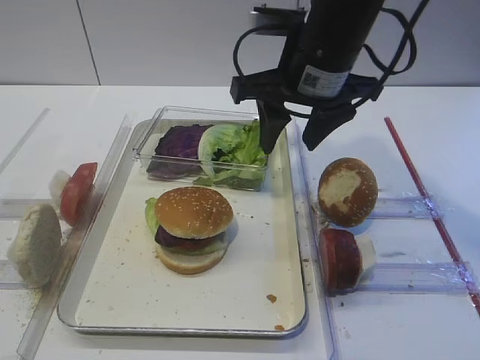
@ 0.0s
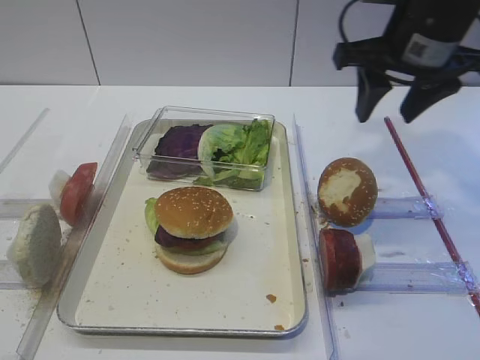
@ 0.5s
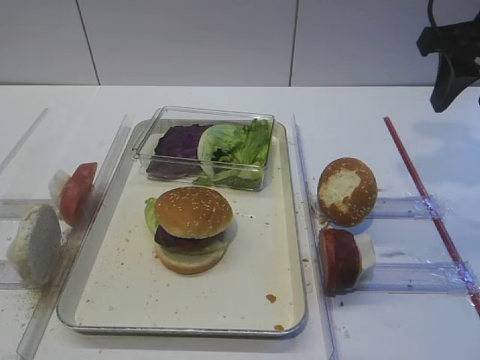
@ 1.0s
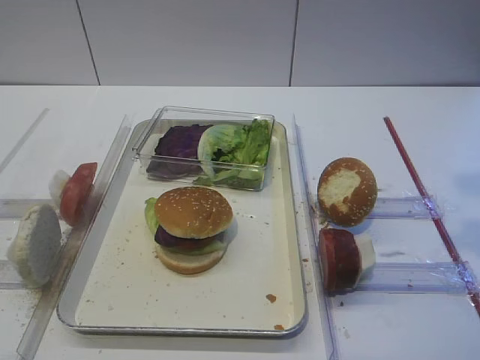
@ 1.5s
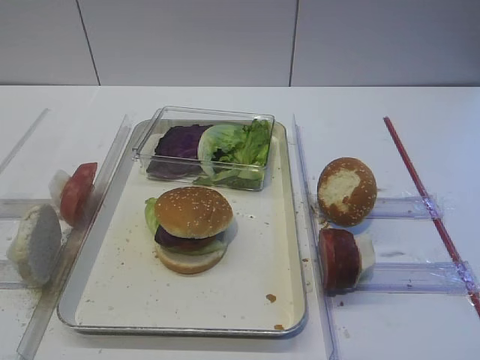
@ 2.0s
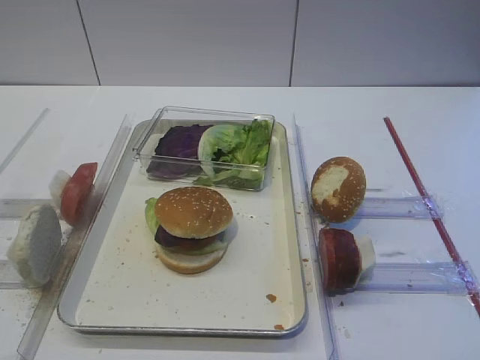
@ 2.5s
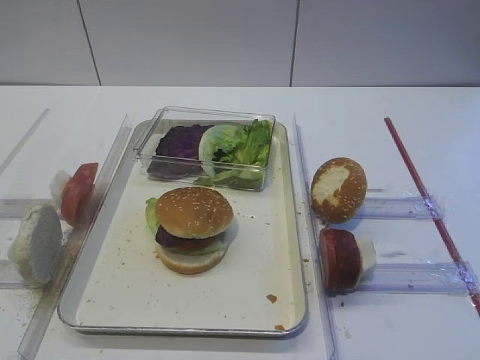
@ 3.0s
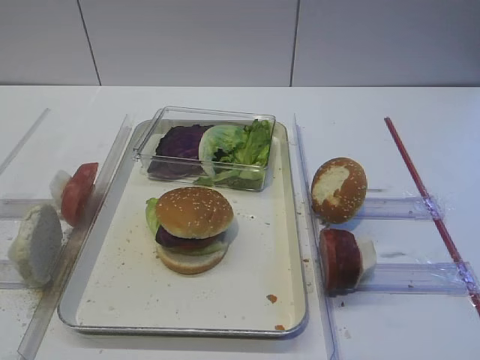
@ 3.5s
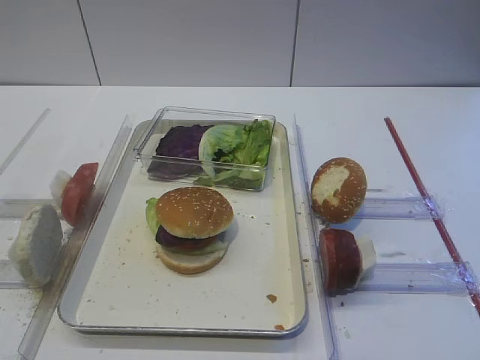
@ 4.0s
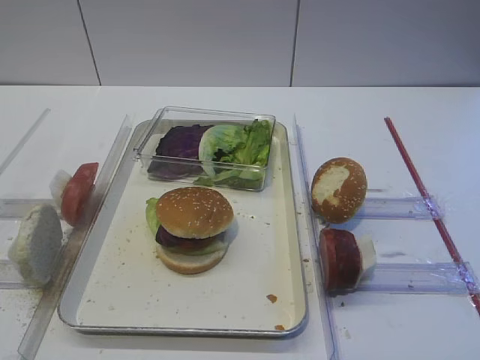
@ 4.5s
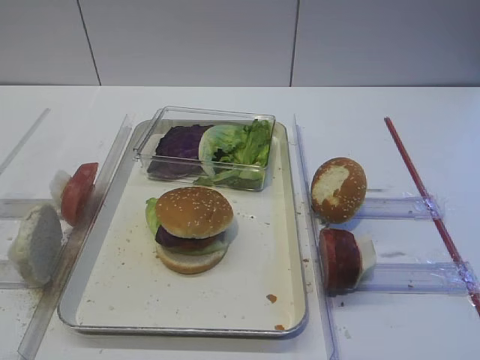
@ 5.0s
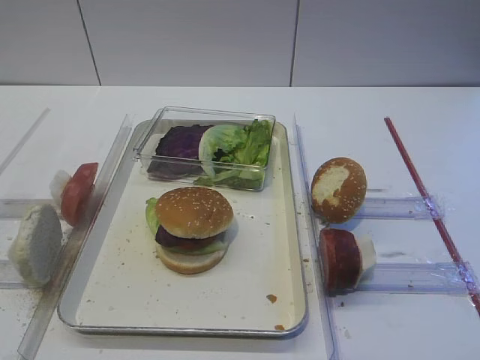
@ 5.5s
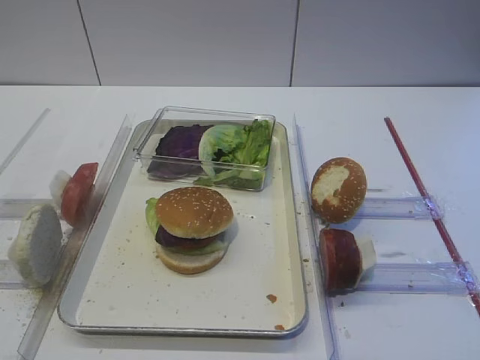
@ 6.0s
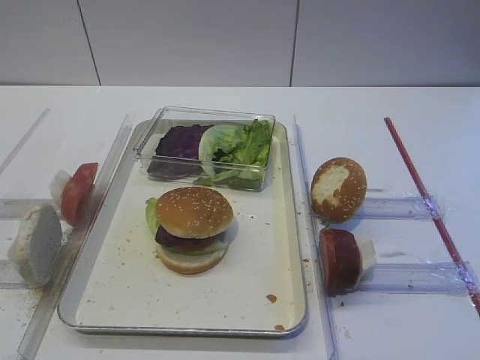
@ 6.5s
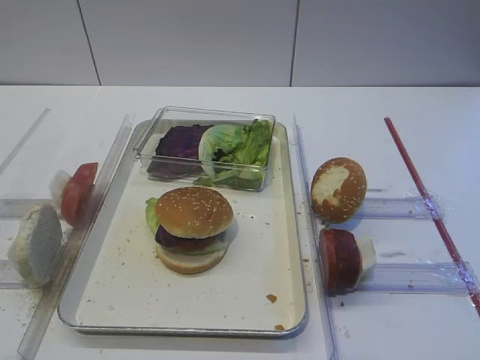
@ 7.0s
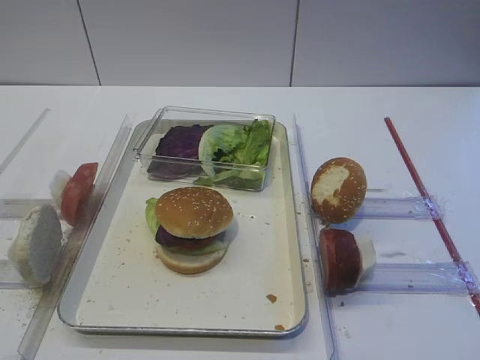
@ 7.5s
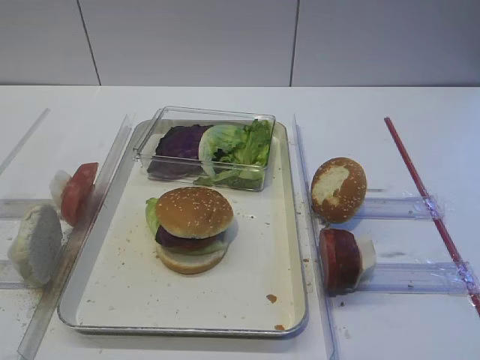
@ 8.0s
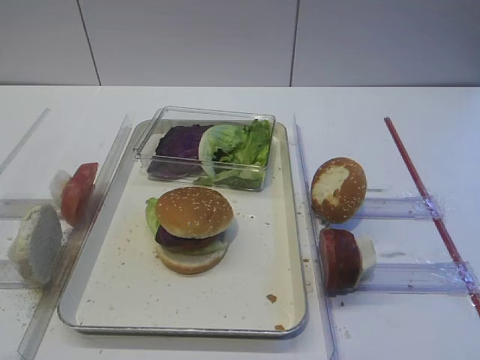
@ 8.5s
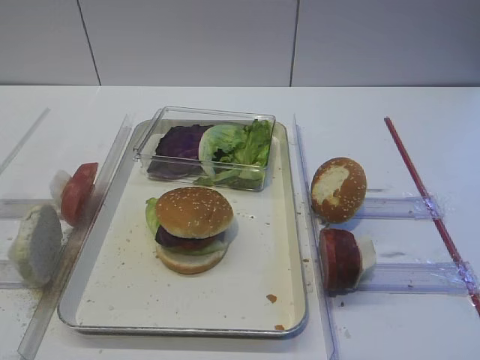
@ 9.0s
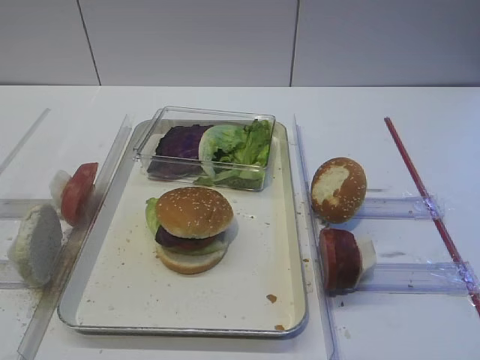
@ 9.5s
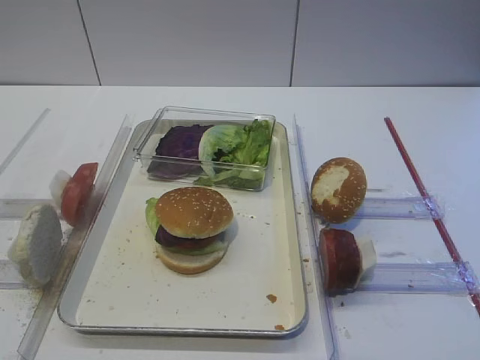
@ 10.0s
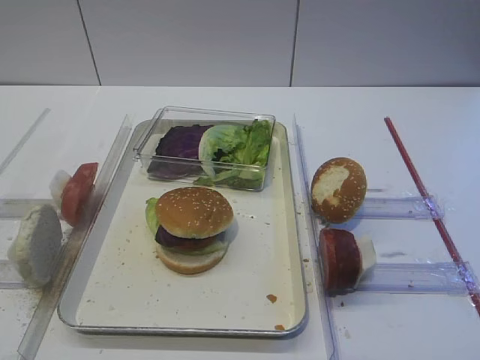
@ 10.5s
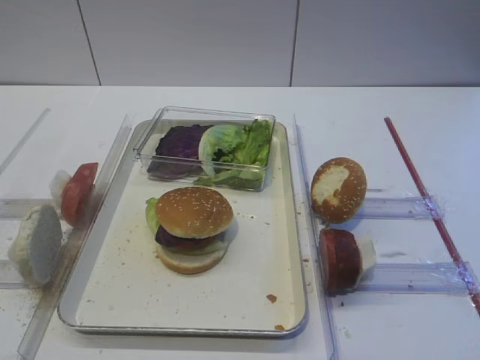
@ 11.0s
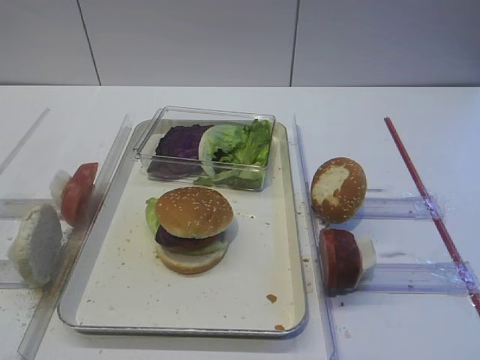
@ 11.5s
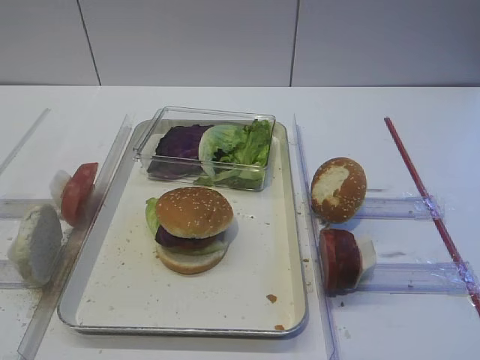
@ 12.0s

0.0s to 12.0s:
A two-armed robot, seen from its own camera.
0.0s to 2.0s: The right gripper heads backward and to the right, covering about 30 cm.
2.0s to 4.0s: The right gripper travels backward and downward by some 10 cm.
4.0s to 6.0s: Both grippers stay about where they are.
10.0s to 12.0s: Both grippers stay about where they are.

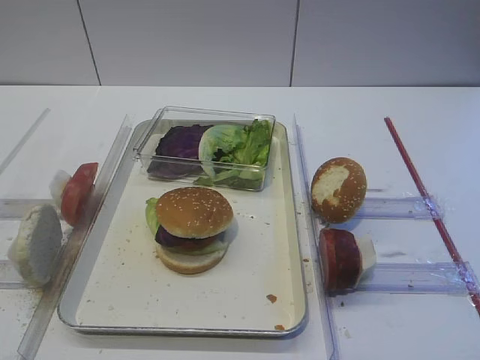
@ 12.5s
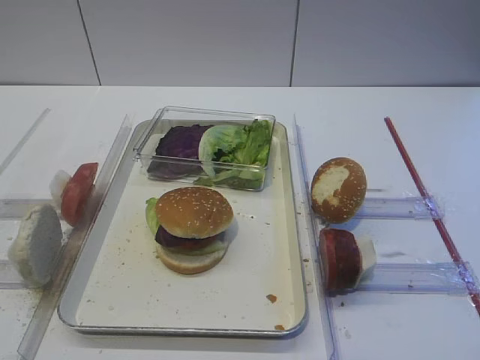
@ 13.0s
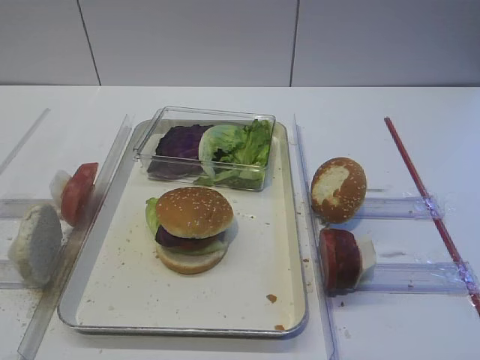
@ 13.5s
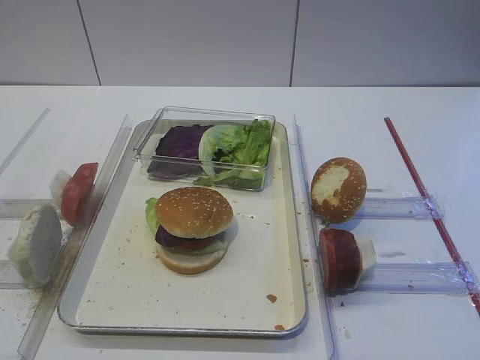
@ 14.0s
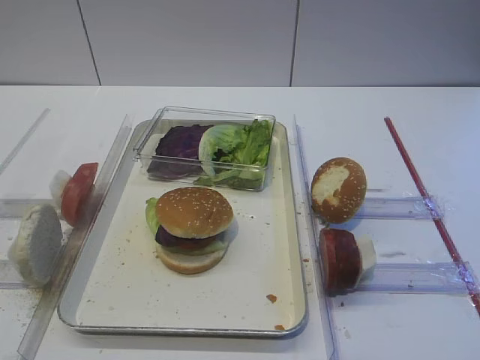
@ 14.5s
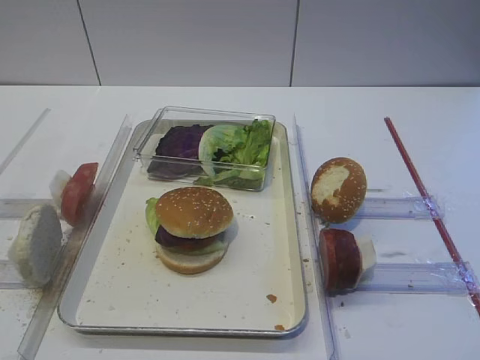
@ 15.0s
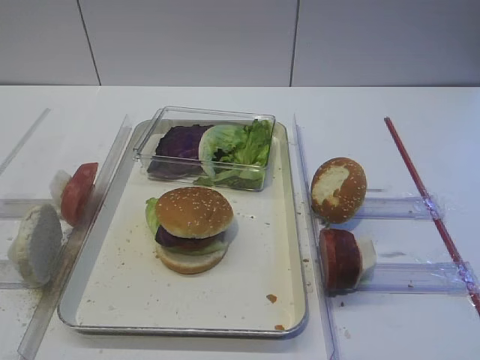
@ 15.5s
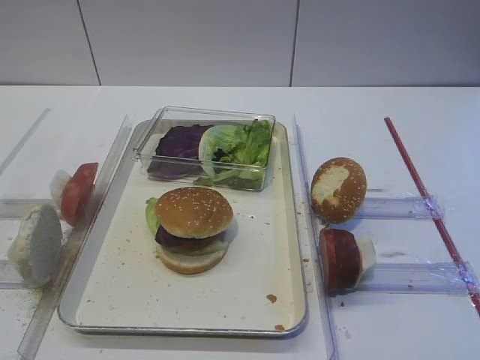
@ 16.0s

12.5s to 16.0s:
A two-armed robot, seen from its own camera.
12.5s to 16.0s: Both grippers stay put.

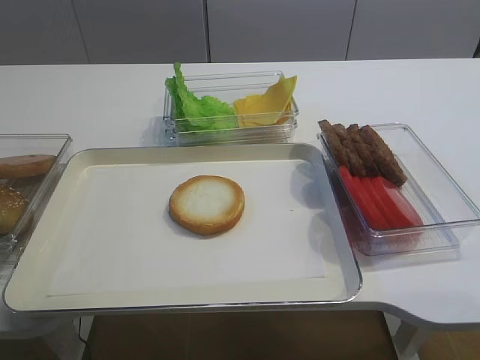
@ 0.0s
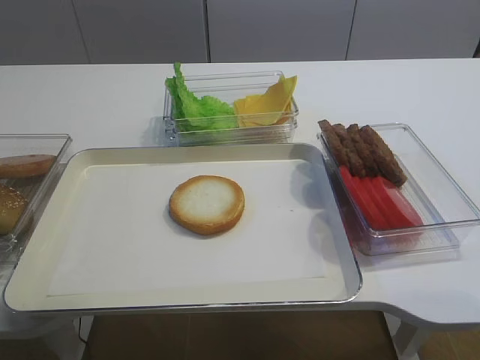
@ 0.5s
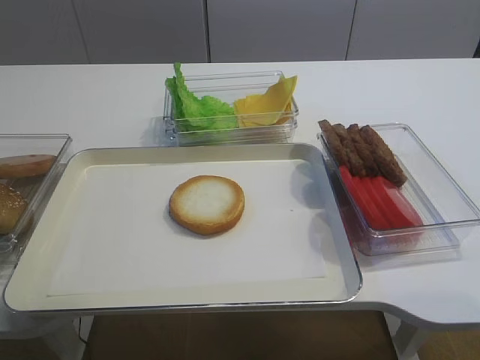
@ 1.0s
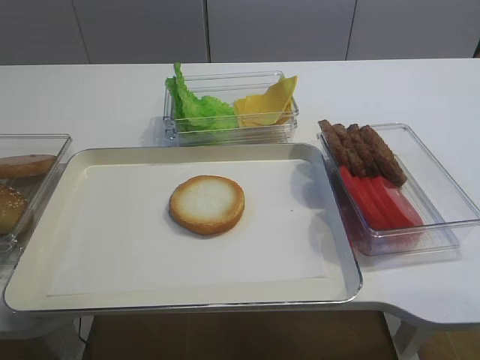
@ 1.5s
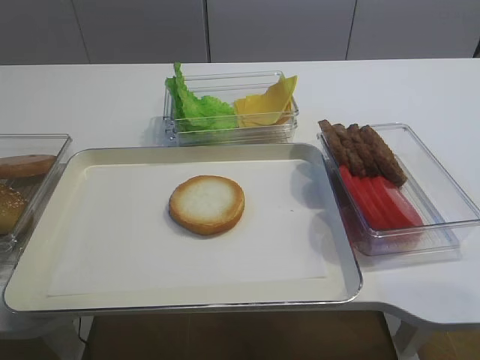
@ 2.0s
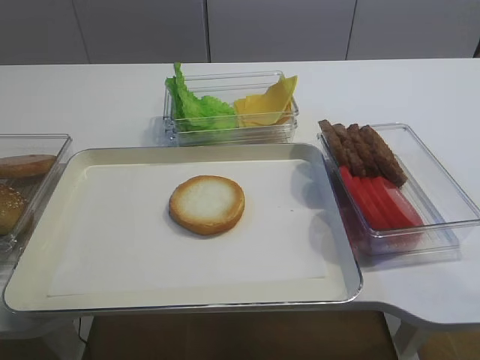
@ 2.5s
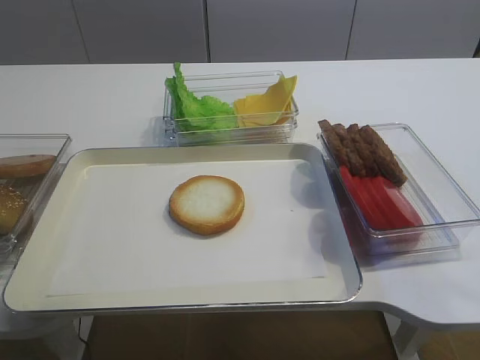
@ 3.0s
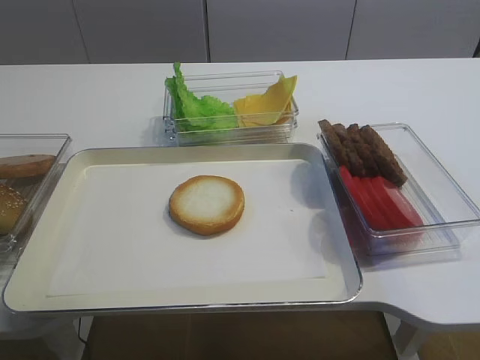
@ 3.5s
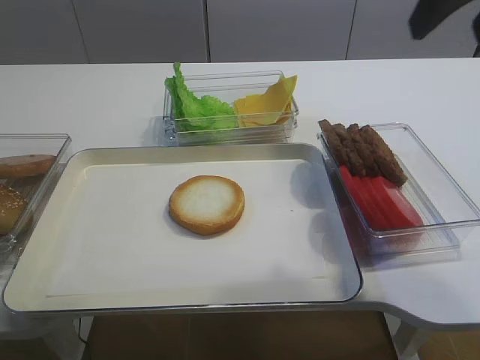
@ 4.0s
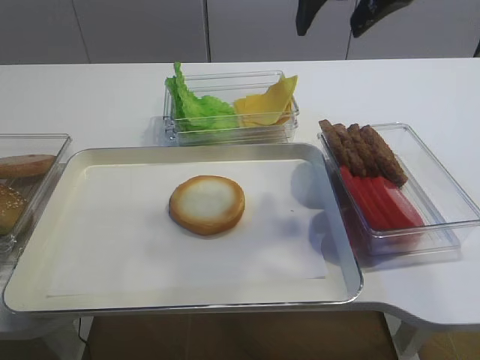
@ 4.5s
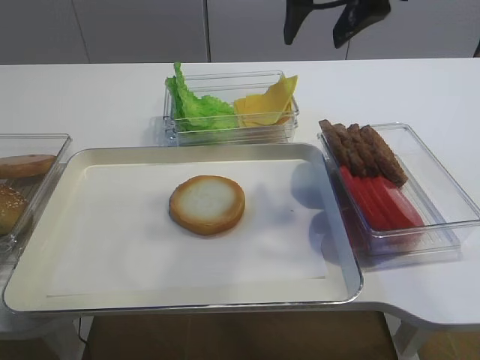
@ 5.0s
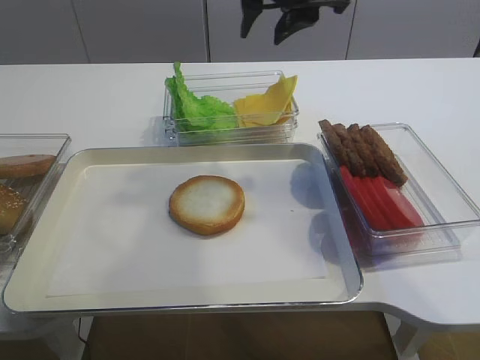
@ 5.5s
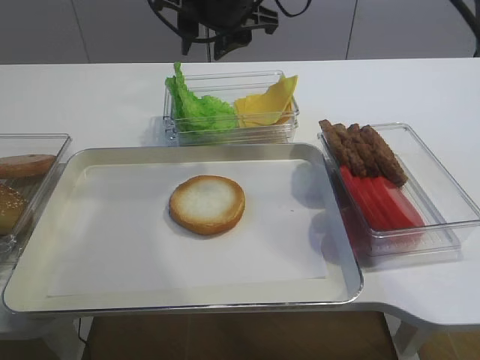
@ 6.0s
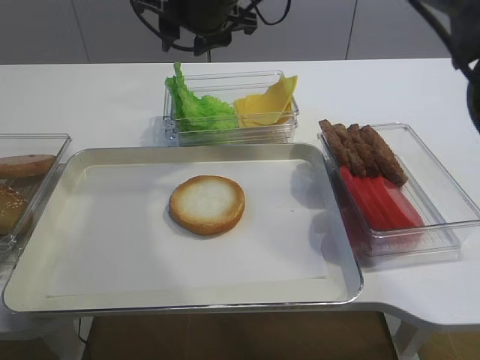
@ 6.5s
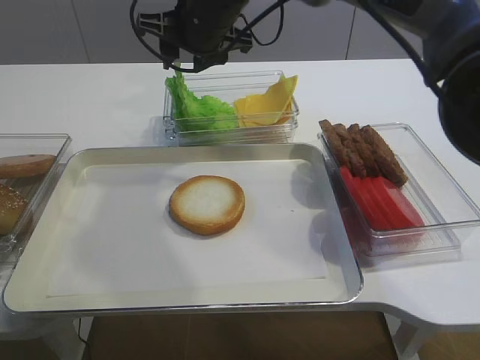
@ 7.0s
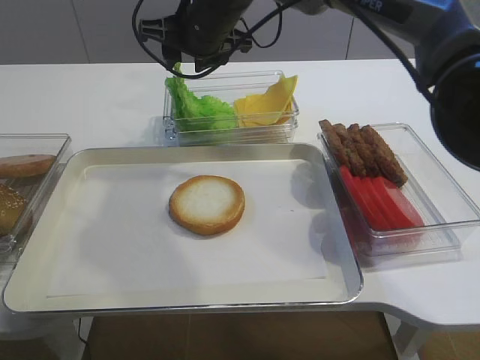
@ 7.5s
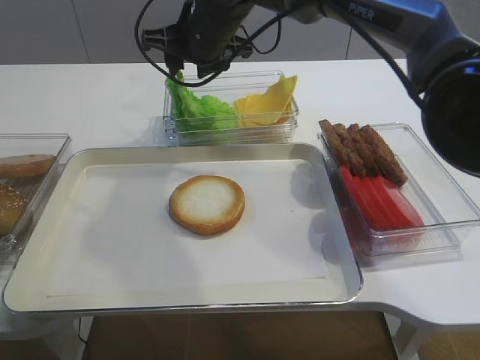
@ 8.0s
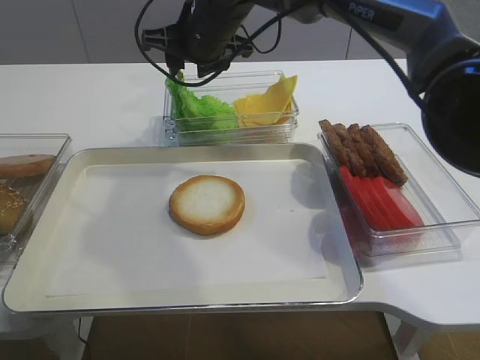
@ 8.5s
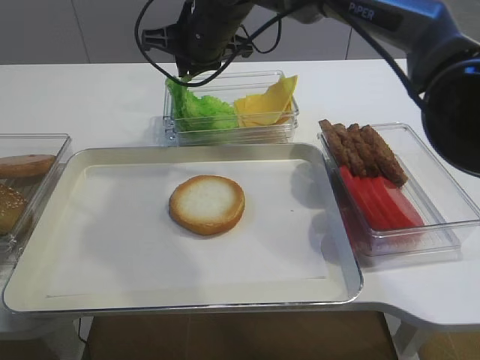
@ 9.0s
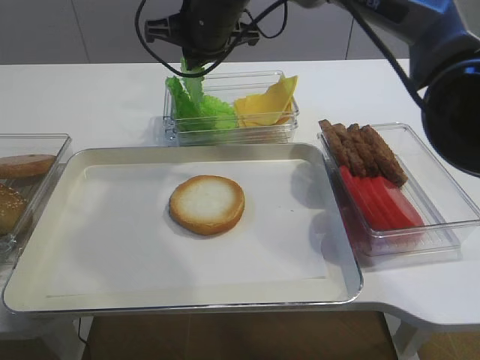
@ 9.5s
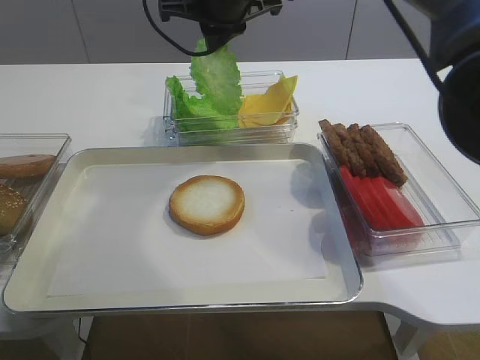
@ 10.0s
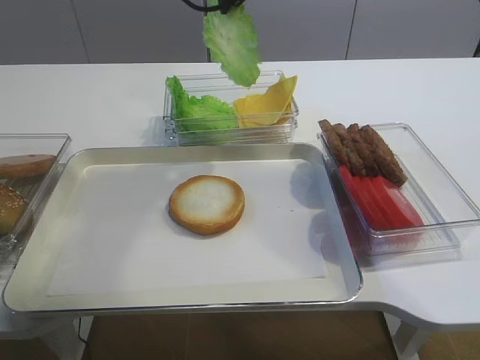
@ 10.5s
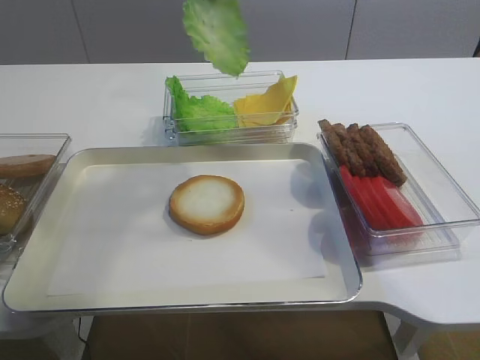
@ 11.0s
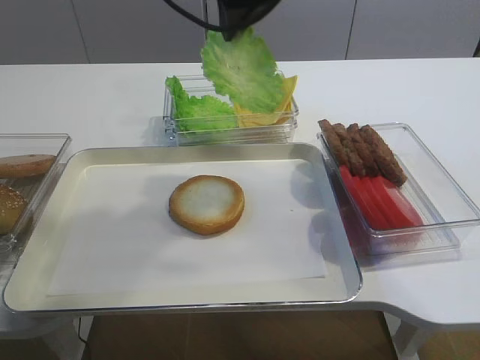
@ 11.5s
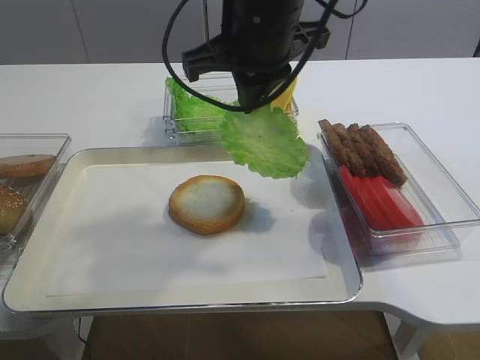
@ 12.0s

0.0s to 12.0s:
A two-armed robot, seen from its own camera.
Step, 0.0s to 11.0s: Pick up the lettuce leaf with the right gripper.
2.0s to 4.0s: The right gripper travels forward and upward by about 30 cm.
4.0s to 6.0s: The right gripper is displaced to the left, forward and downward by approximately 30 cm.
6.0s to 8.0s: The right gripper goes some 5 cm downward.
8.0s to 10.0s: The right gripper is displaced upward by approximately 5 cm, and closes up.
10.0s to 12.0s: The right gripper shifts approximately 10 cm backward.
